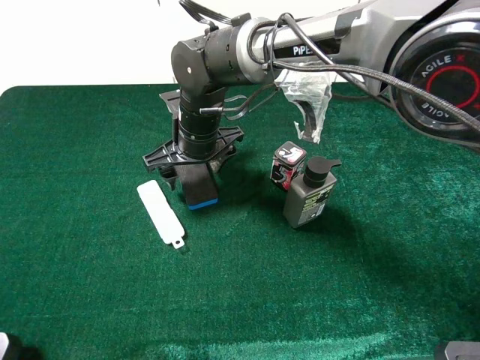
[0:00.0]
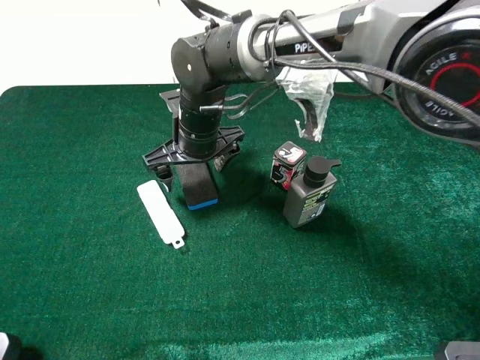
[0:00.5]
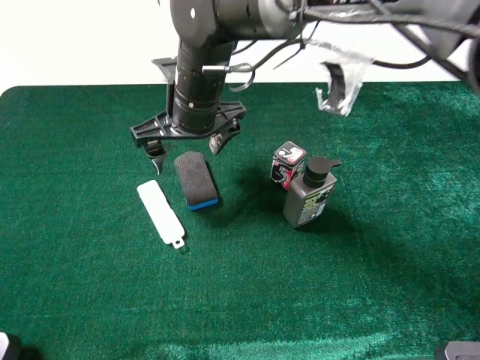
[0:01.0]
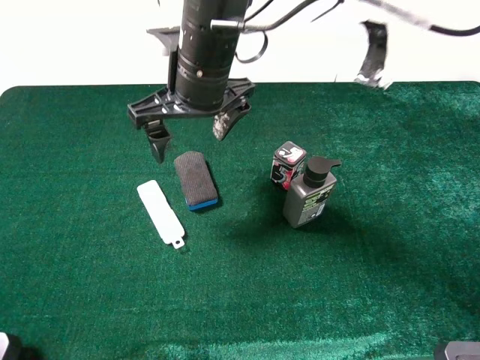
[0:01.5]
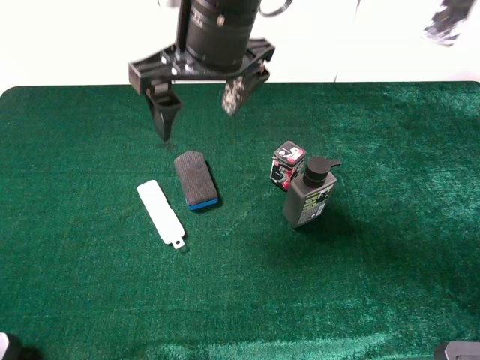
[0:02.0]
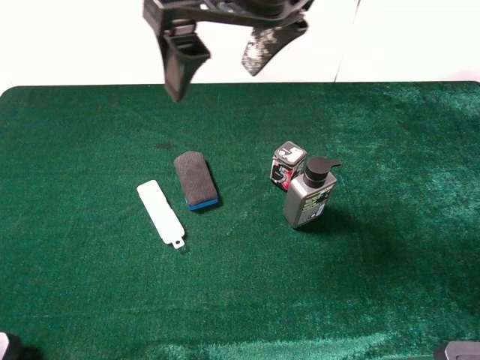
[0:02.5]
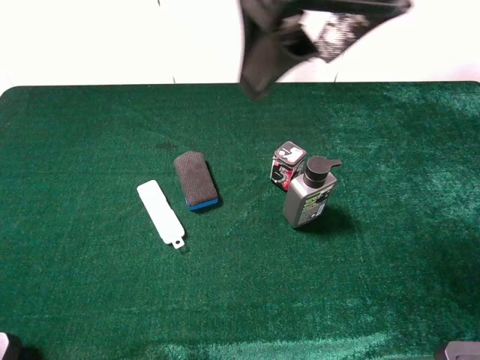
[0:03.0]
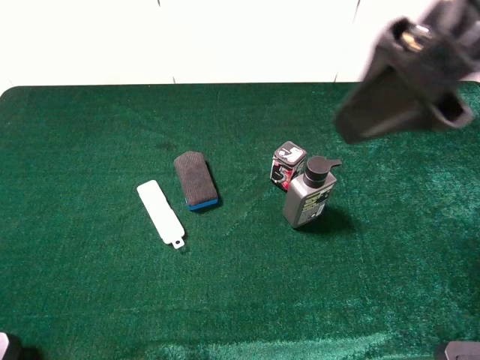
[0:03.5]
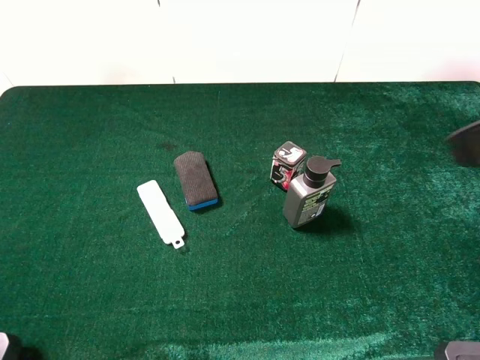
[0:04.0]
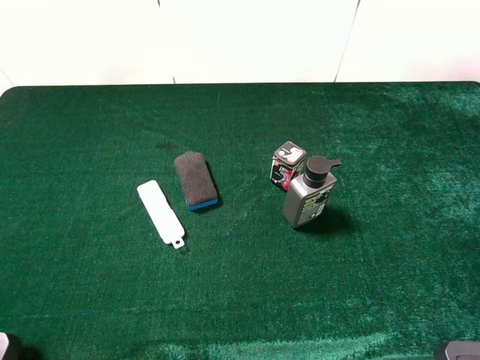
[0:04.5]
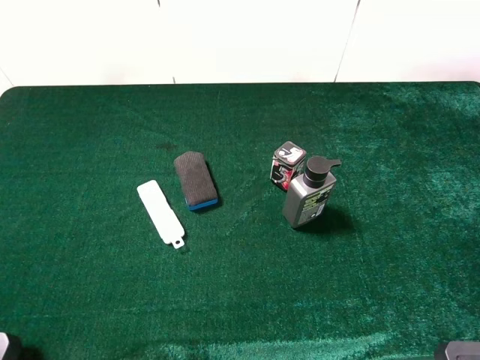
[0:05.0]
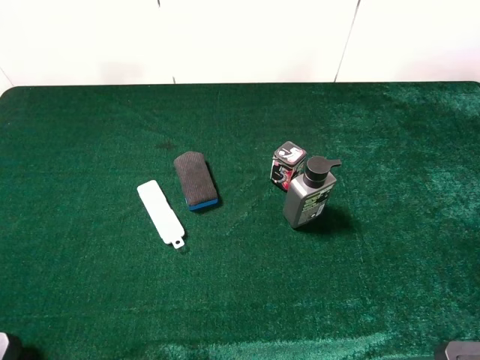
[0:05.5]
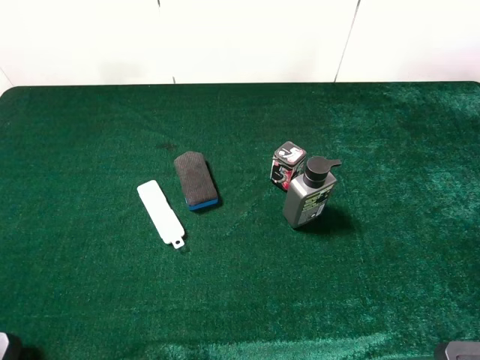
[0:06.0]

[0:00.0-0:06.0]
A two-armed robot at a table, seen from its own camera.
Task of the whole recording: the gripper move the object.
0:00.0 to 0:02.0: The right gripper is displaced upward by about 20 cm.
0:02.0 to 0:04.0: The right gripper moves to the right and backward, approximately 30 cm.
